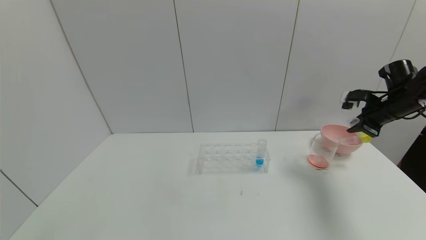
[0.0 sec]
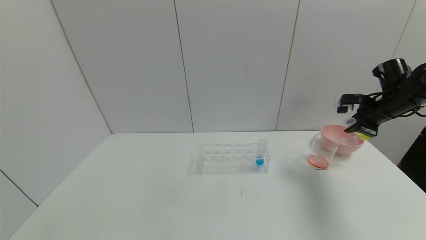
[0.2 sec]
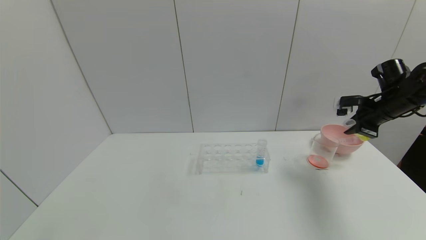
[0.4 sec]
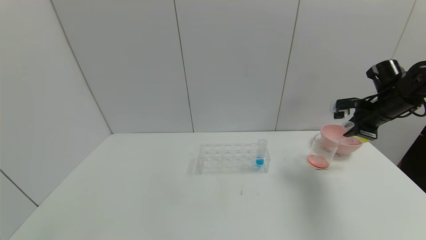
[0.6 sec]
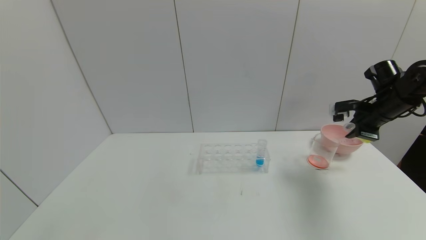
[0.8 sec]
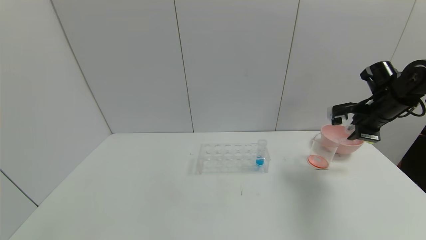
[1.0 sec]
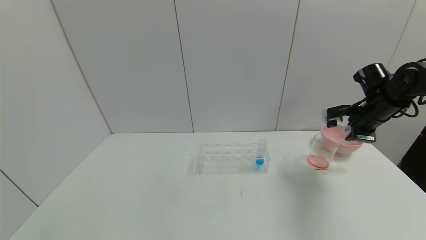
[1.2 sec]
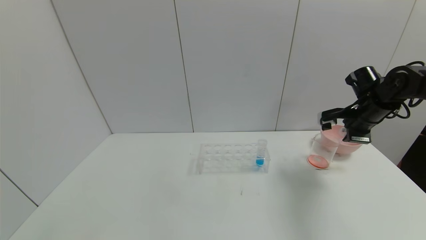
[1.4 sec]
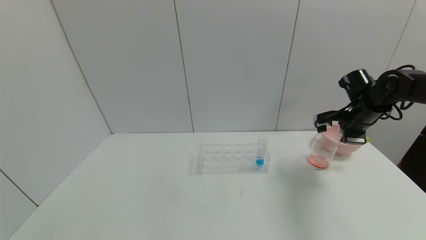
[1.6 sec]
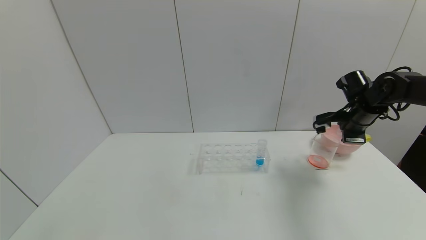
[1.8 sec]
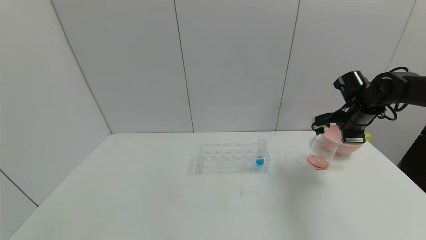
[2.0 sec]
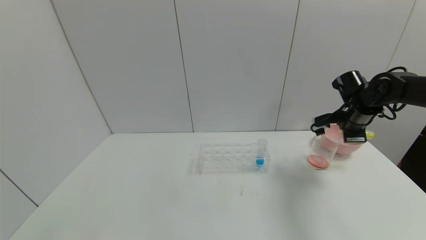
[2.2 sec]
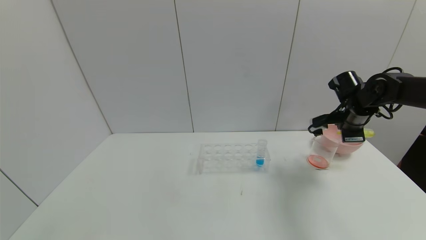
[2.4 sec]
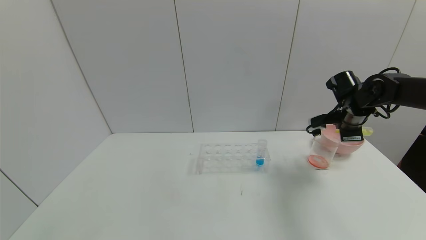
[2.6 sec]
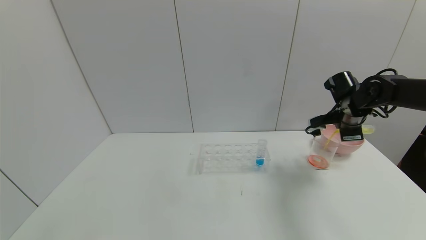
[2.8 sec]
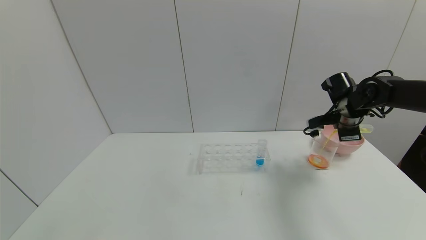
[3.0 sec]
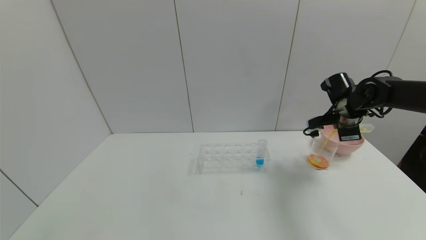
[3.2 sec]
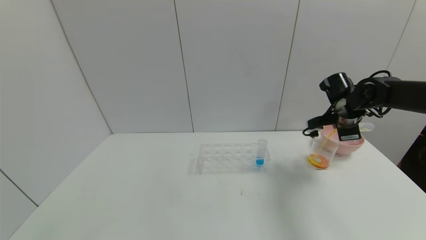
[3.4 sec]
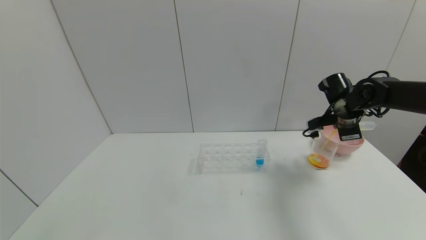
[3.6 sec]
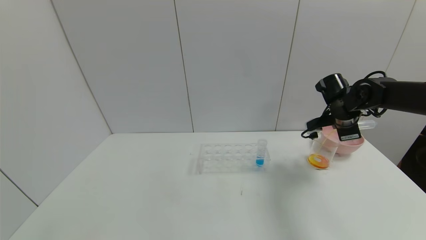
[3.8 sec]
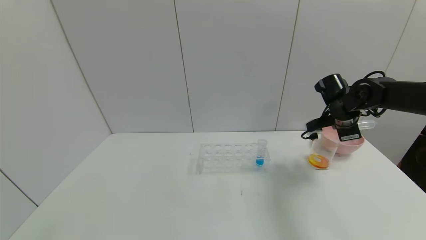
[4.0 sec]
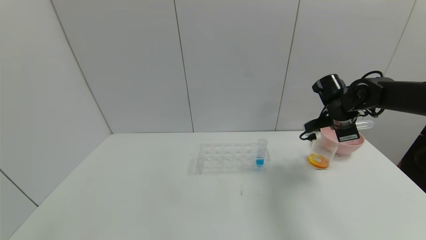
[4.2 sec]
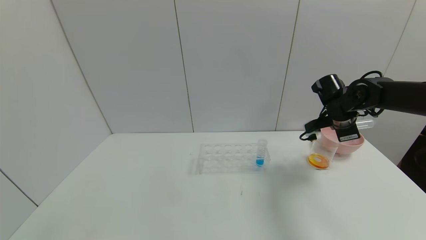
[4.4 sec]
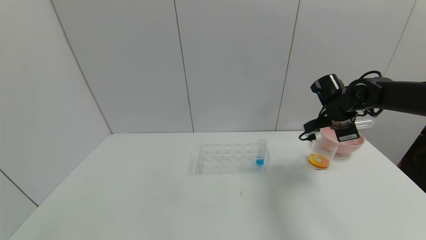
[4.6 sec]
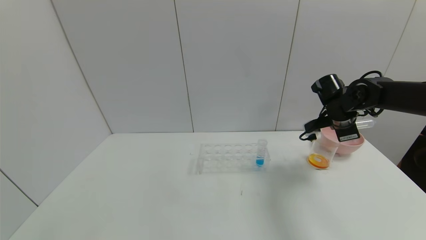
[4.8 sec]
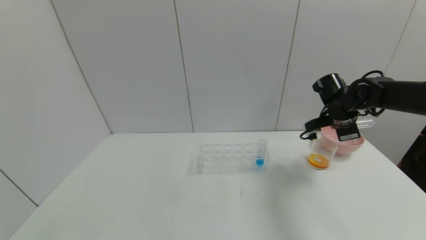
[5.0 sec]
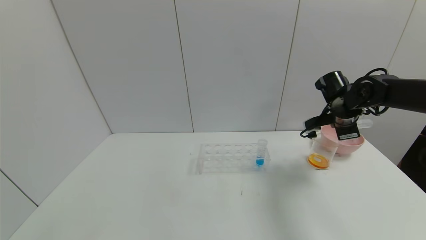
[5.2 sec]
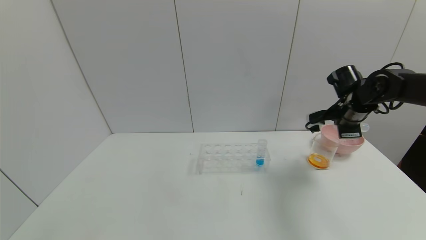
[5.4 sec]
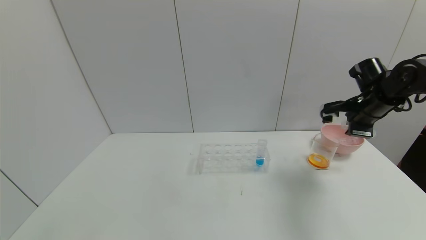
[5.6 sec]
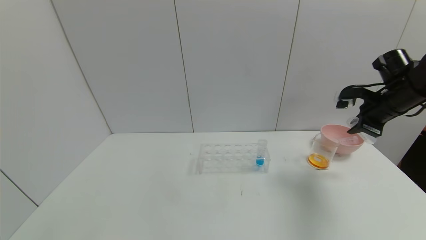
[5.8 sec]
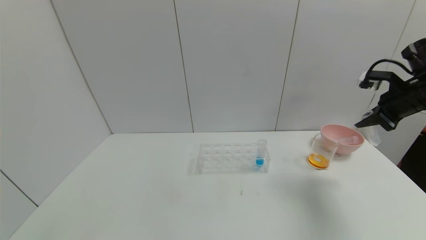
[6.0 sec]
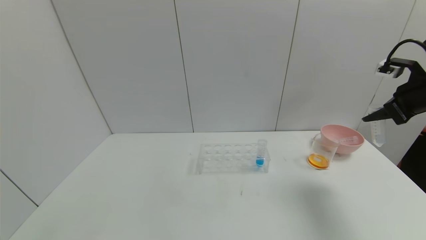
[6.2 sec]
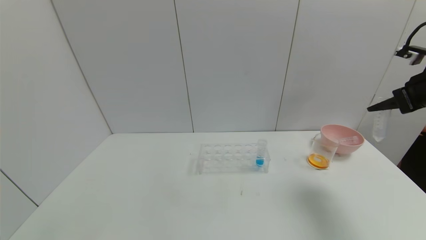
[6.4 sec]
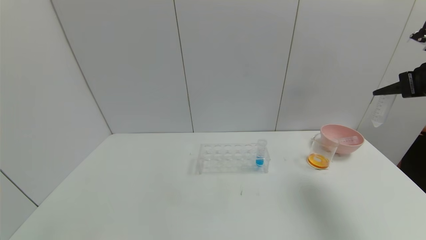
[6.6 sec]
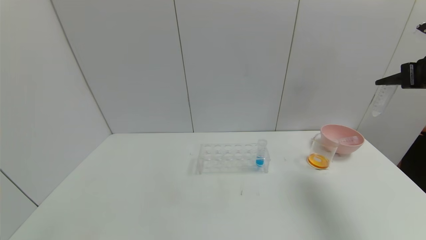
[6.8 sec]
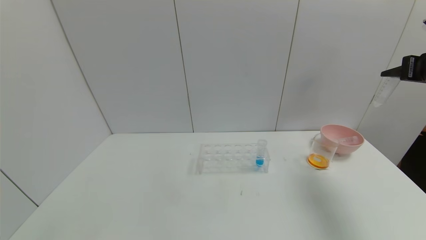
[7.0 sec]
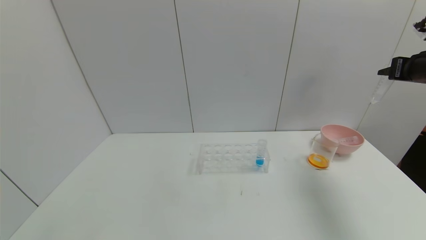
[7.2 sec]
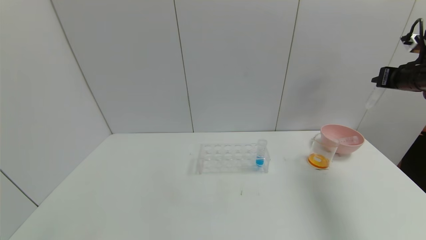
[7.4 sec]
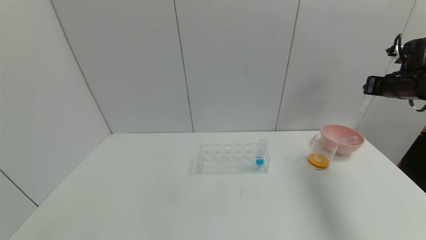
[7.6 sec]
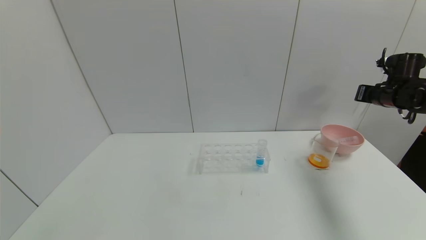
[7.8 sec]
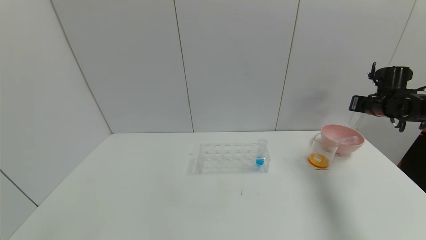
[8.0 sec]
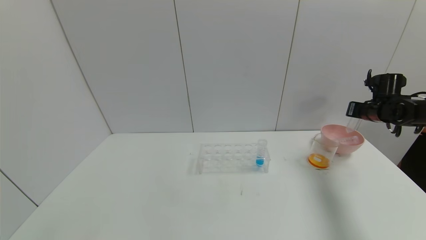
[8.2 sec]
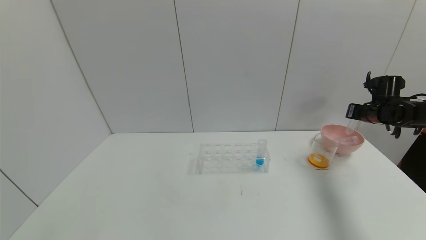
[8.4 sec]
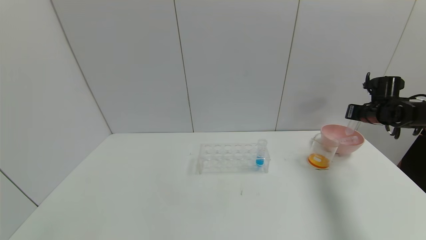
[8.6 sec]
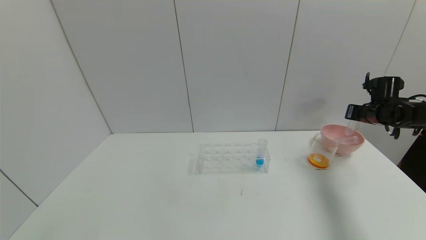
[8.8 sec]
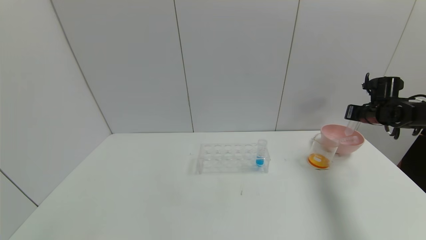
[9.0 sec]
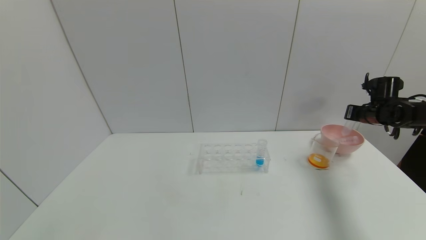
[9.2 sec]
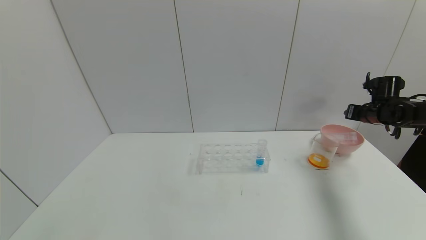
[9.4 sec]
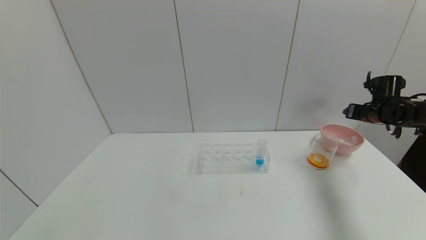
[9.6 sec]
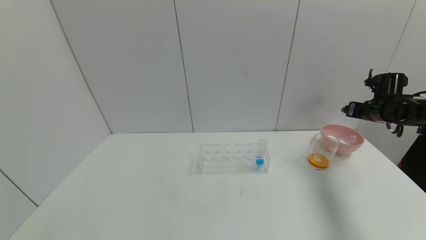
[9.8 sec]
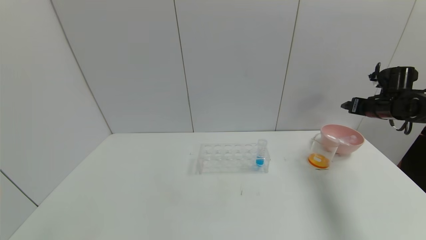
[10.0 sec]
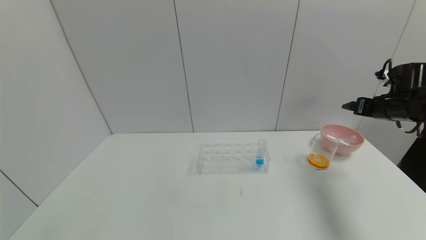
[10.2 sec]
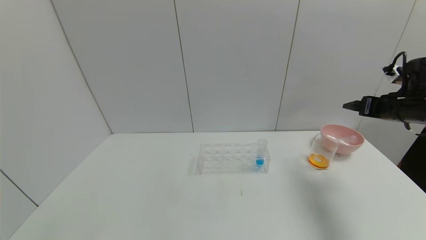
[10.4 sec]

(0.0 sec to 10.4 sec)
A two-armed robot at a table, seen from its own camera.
Task of the whole recording: pick up the test tube with yellow pigment and the test tube with red pigment by grippers and pour them into the beaker.
Step, 0.0 sec - 4.4 sec: Pour the yellow reagent into the graduated cylinder with the right gripper.
Step, 4.6 sec - 9.4 sec: Place the test tube into the pink bowl with the right gripper.
0.0 sec - 1.4 sec: The right gripper is displaced to the left by some 5 cm.
3.0 sec - 4.4 sec: The grippers make only small movements.
4.4 sec - 6.0 sec: The right gripper goes approximately 15 cm to the right, upward and backward.
6.0 sec - 7.4 sec: The right gripper ends up approximately 5 cm from where it was.
7.4 sec - 9.0 sec: The right gripper heads downward and forward, covering approximately 15 cm.
9.0 sec - 10.4 sec: The right gripper heads backward and upward, covering about 15 cm, and opens its fingers.

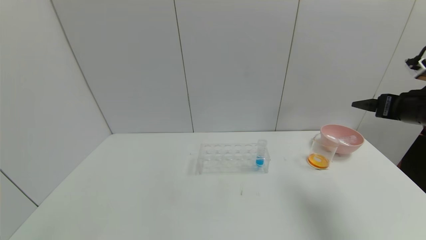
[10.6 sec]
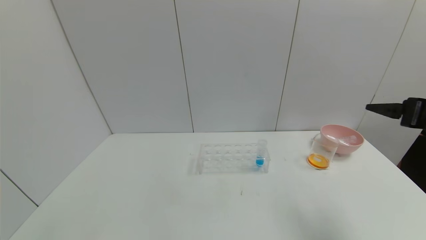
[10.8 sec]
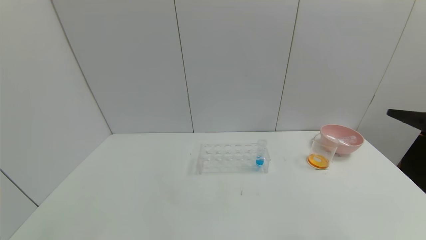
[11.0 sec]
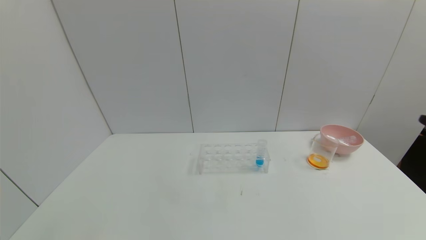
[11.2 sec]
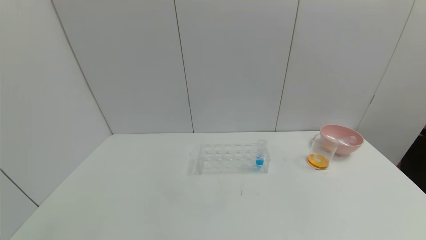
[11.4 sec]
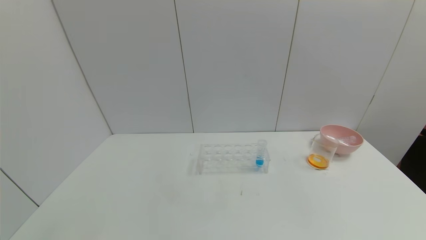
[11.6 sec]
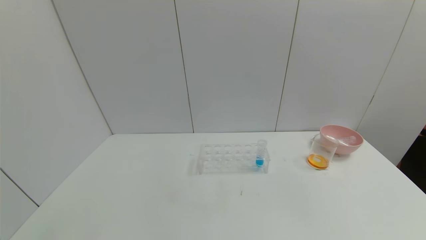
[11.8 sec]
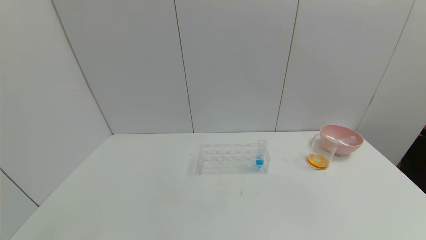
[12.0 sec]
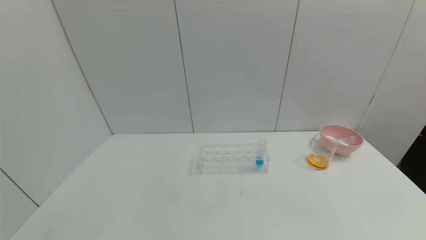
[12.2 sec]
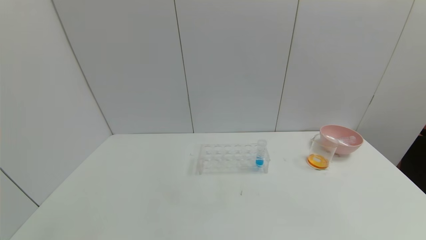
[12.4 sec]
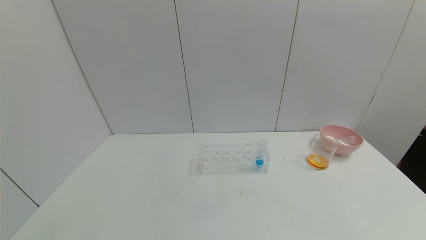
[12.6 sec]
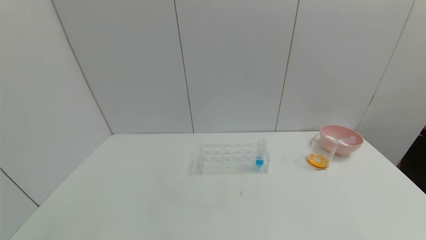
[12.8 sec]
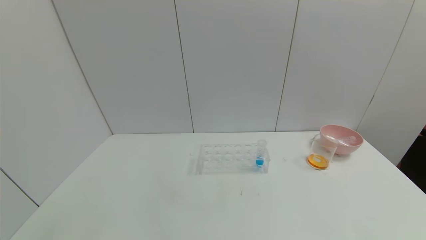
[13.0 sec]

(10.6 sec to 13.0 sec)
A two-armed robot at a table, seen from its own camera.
Task of the whole recording: pick up the test tube with yellow pigment and the test tube with red pigment by grippers and pour them into the beaker.
10.6 sec - 11.8 sec: The right gripper moves backward, some 30 cm.
